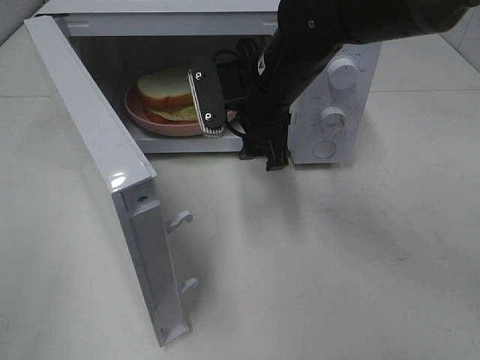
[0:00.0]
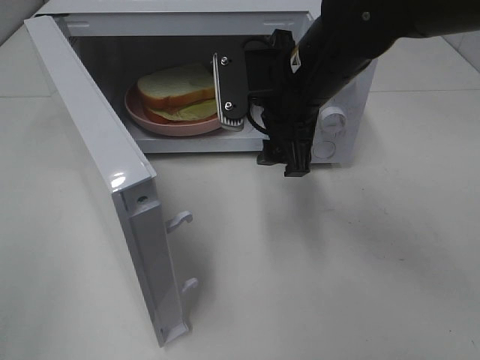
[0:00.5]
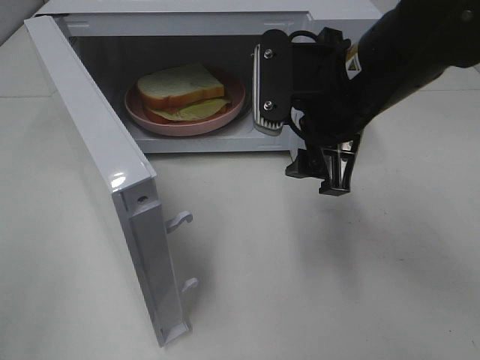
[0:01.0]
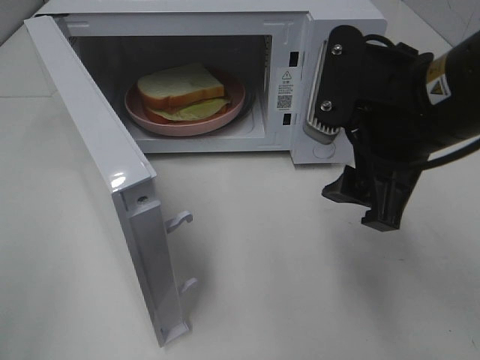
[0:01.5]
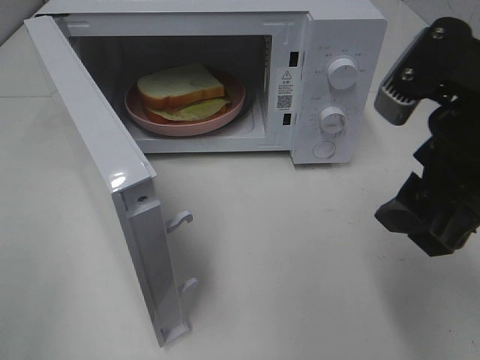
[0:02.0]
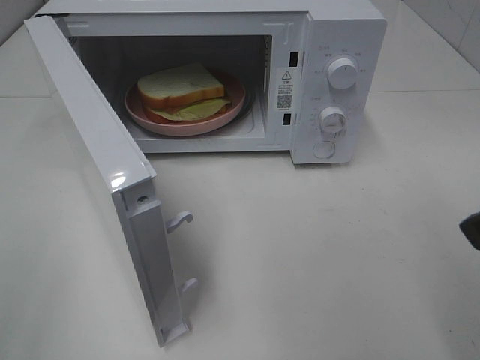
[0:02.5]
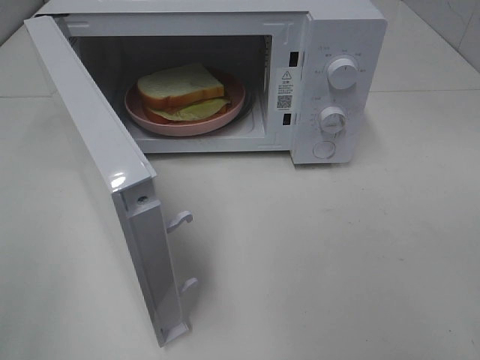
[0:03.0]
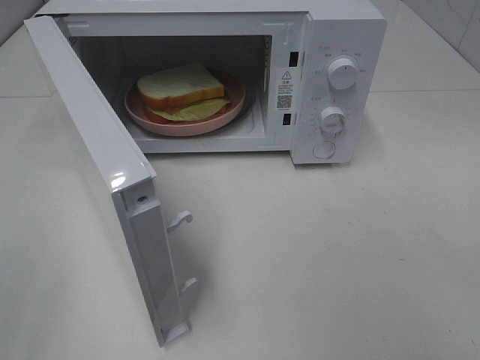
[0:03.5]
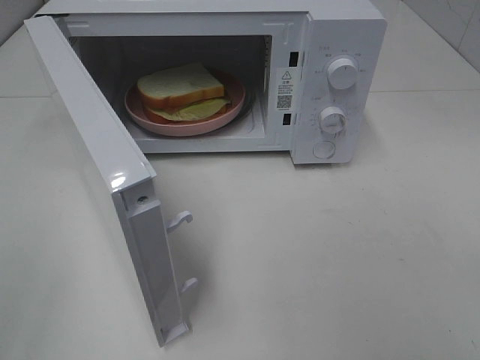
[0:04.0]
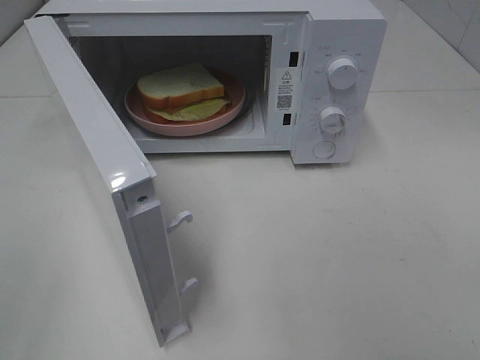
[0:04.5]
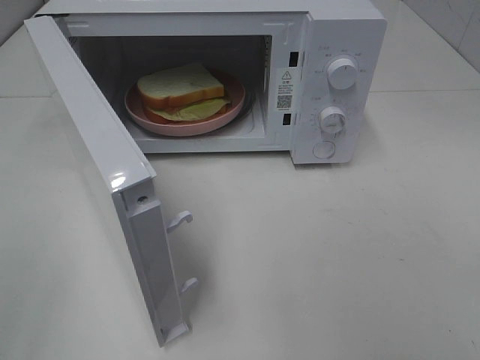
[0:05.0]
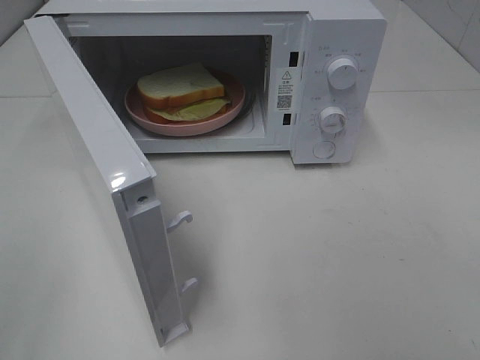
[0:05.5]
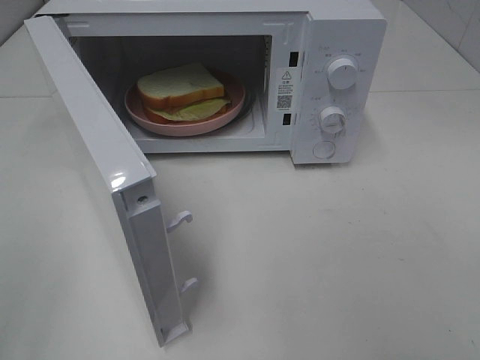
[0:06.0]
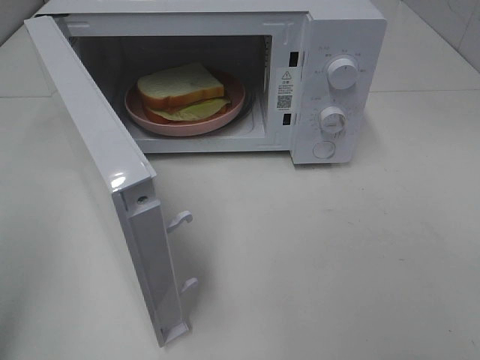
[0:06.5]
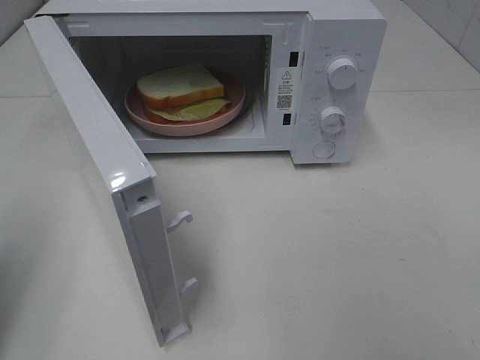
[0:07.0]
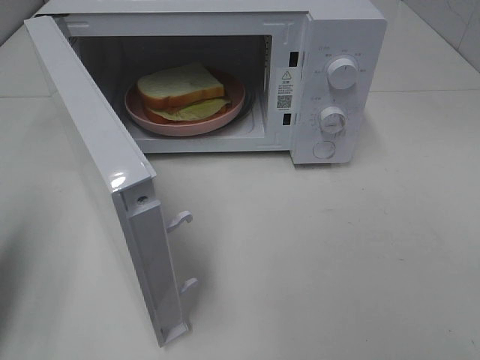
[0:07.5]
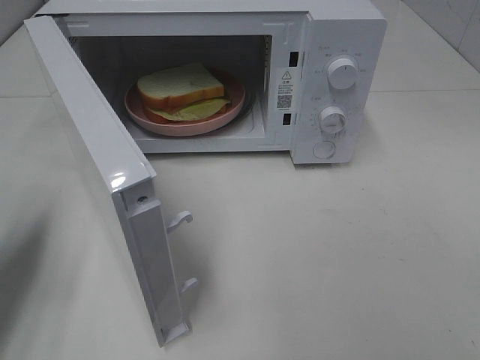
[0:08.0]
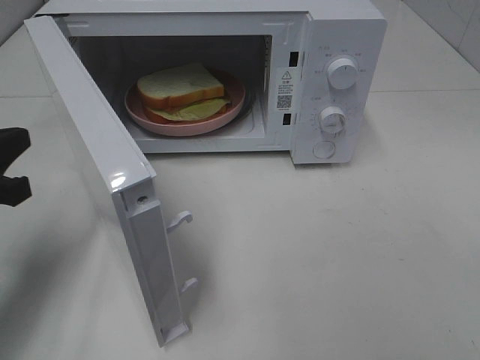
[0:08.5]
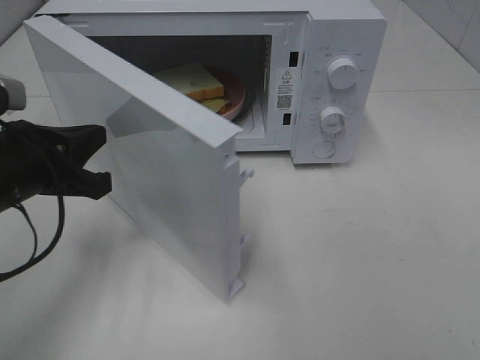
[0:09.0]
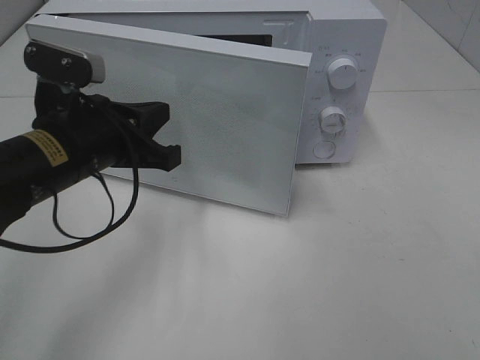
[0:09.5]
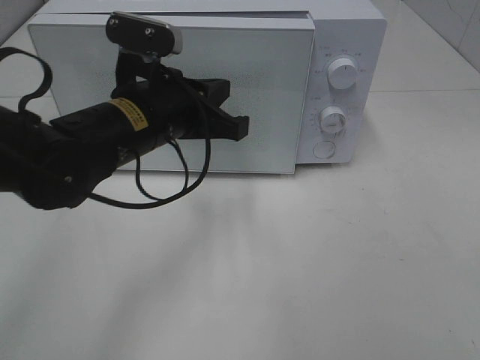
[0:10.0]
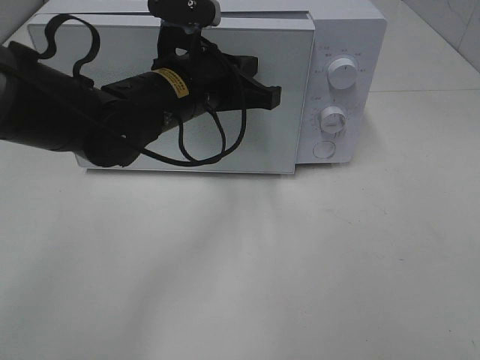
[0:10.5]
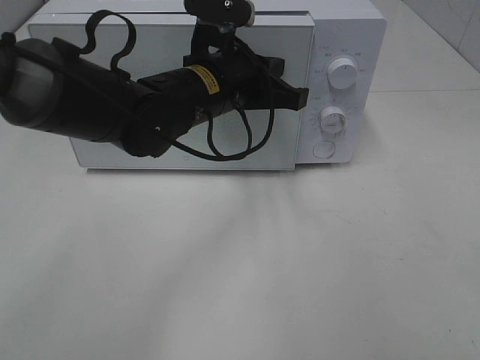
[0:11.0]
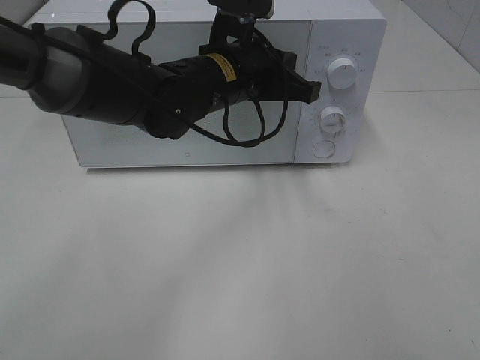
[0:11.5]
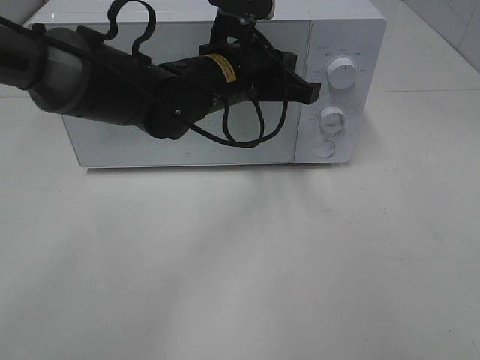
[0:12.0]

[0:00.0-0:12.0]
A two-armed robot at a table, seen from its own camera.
Task of the whole recording: Heat Sandwich.
0:00.0 to 0:02.0: The right gripper shifts about 20 cm backward and to the right.
0:02.0 to 0:04.0: The right gripper goes roughly 20 cm backward and to the right.
0:04.0 to 0:06.0: Neither gripper changes place.
0:06.0 to 0:08.0: The left gripper heads forward and downward, covering some 20 cm, and closes up.
0:08.0 to 0:10.0: The left gripper goes about 25 cm to the right and forward.
0:10.0 to 0:12.0: The left gripper heads to the right and forward, covering some 10 cm.

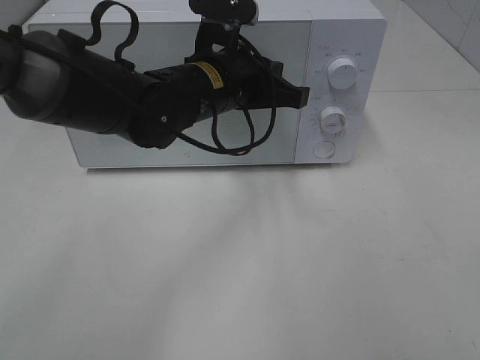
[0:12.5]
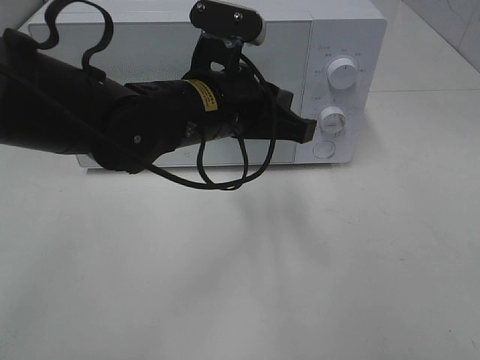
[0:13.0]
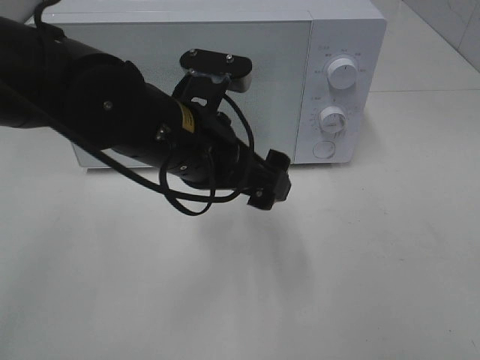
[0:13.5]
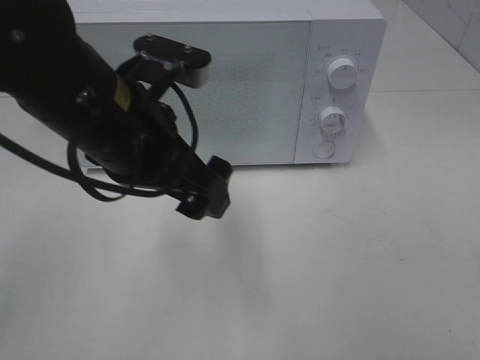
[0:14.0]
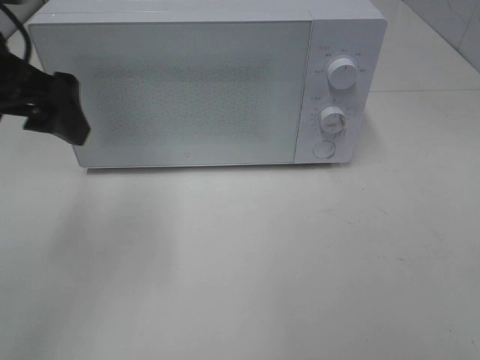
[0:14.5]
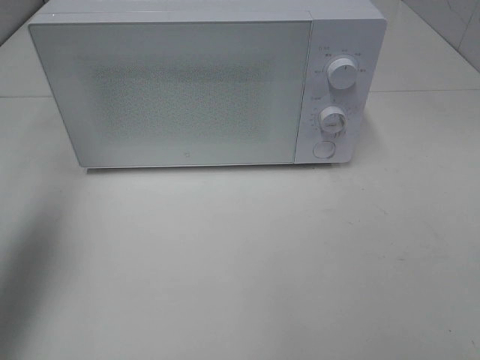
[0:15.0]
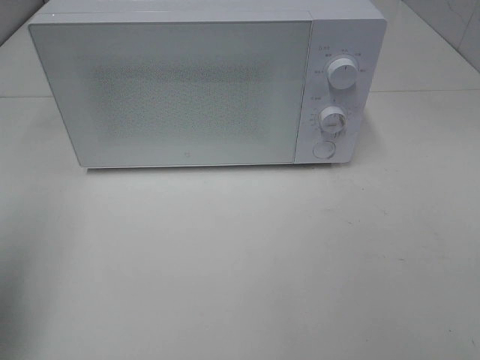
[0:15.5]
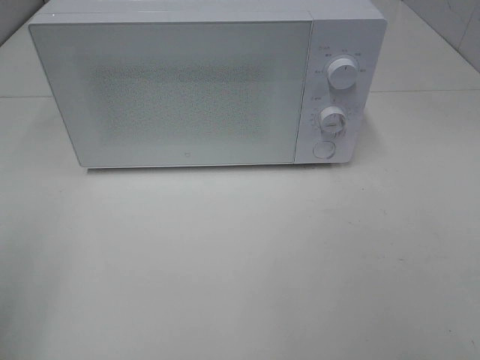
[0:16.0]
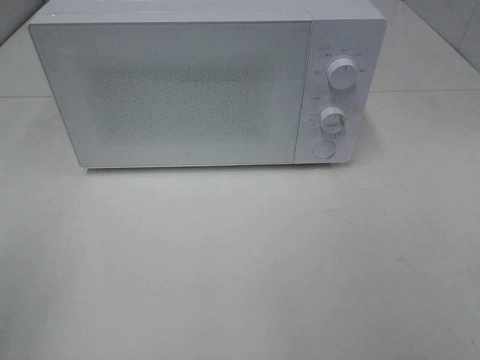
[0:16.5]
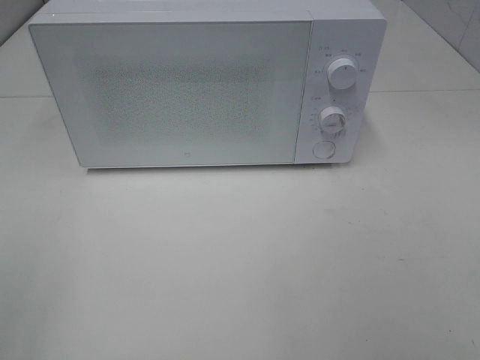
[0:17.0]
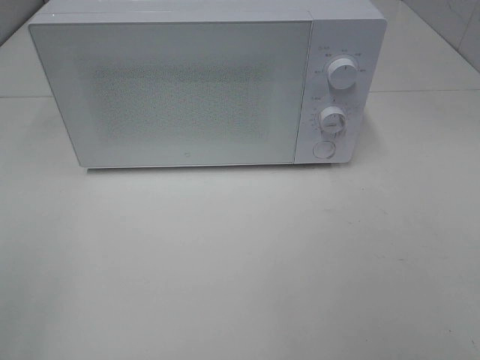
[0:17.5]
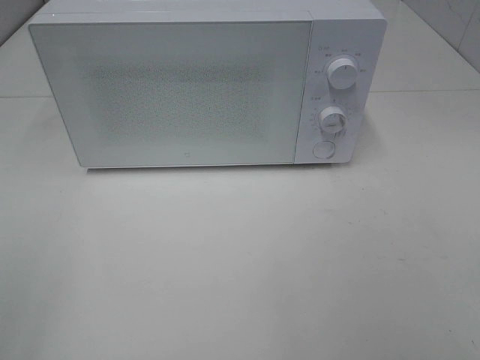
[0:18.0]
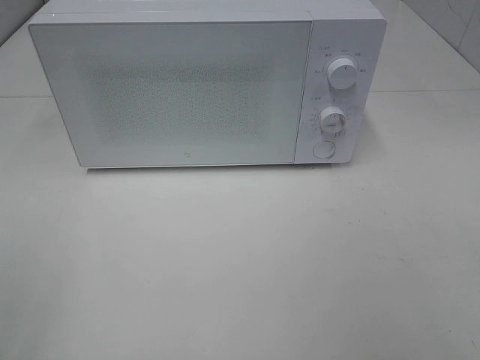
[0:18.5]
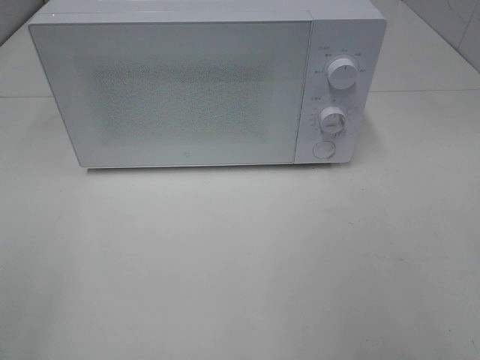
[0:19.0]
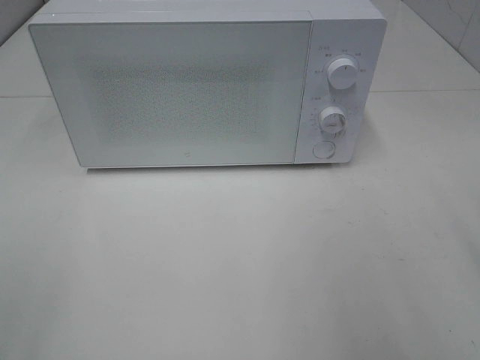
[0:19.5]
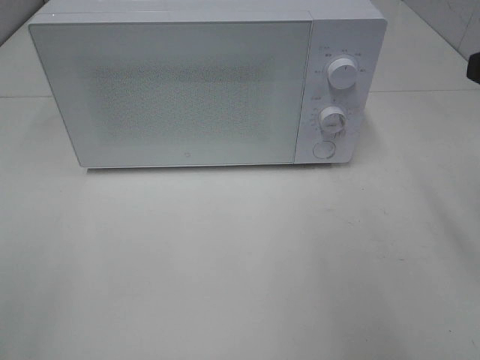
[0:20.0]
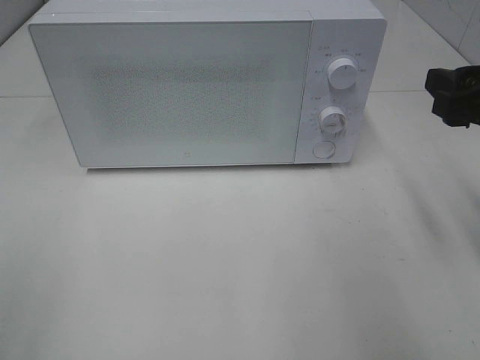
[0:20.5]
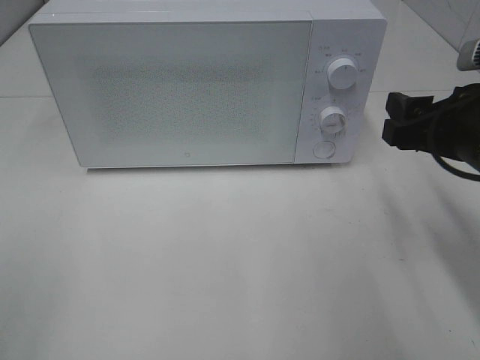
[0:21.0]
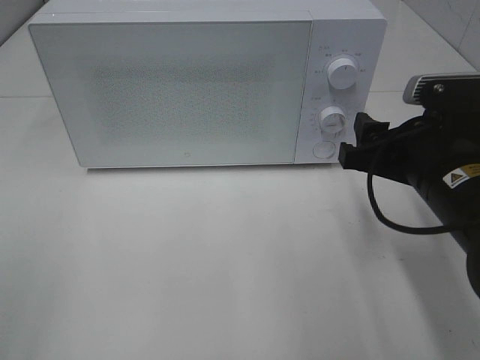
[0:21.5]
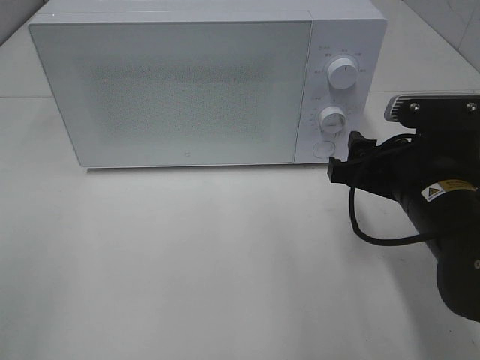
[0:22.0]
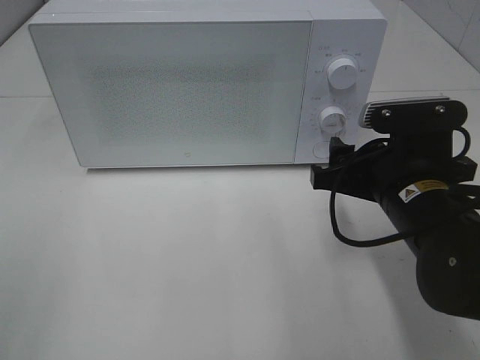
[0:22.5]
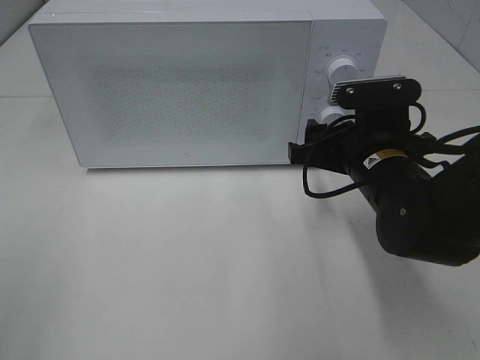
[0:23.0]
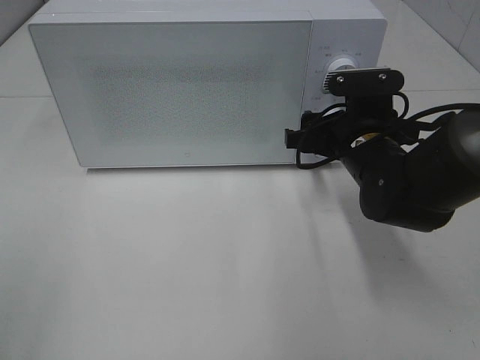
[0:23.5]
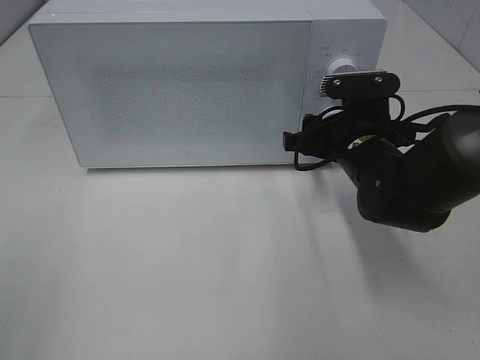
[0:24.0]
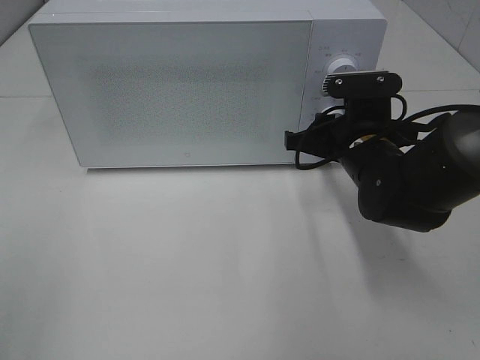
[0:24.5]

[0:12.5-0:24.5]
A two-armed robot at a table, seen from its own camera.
Task of the whole recording: Heat Sandwich.
0:12.5 to 0:14.5: The left gripper is displaced to the left and upward by about 25 cm, and opens up.
0:14.5 to 0:16.5: The left gripper heads backward and to the left, covering some 25 cm.
0:18.5 to 0:20.5: The right gripper is displaced forward by some 20 cm.
0:20.5 to 0:22.5: The right gripper moves to the left and downward, some 15 cm.
0:22.5 to 0:24.5: The right gripper travels forward by roughly 10 cm, and closes up.

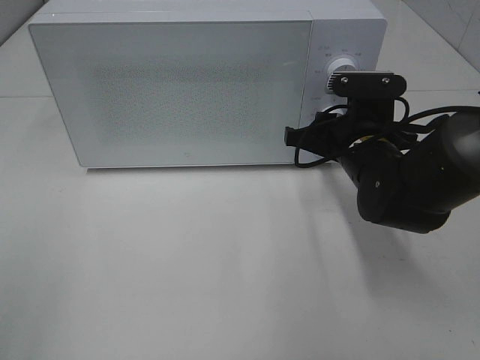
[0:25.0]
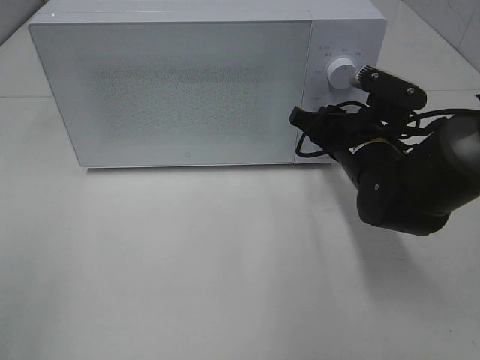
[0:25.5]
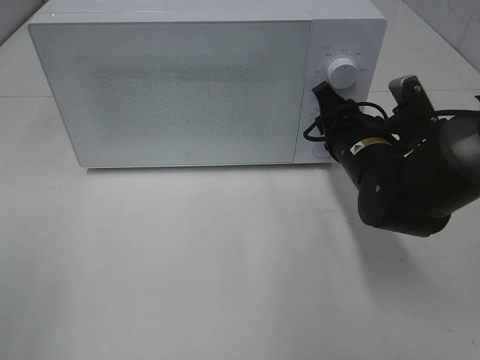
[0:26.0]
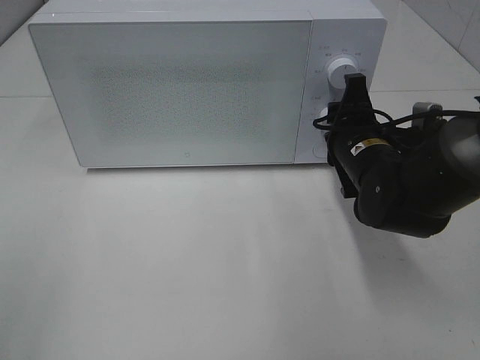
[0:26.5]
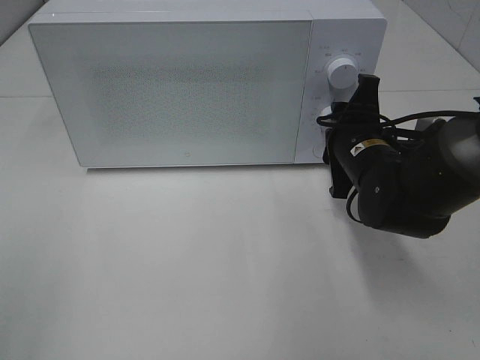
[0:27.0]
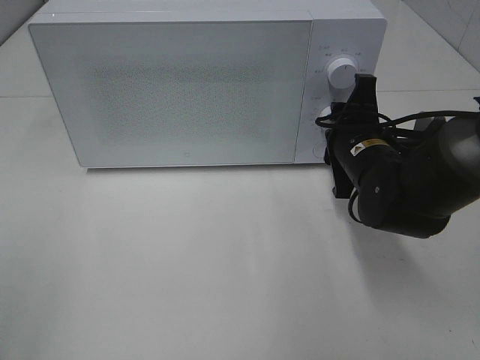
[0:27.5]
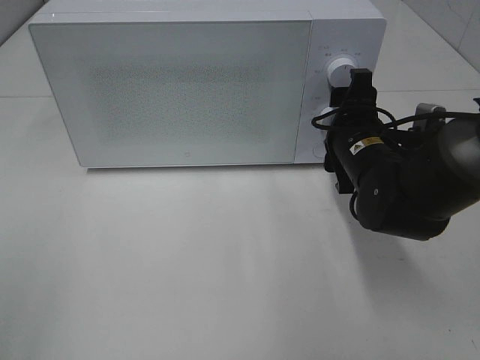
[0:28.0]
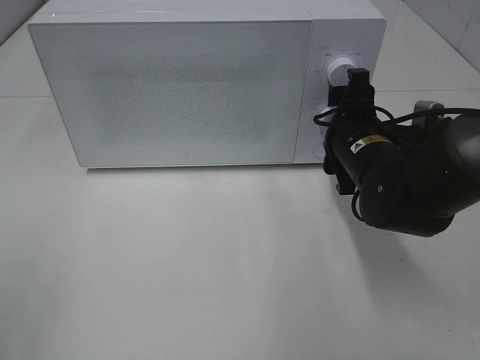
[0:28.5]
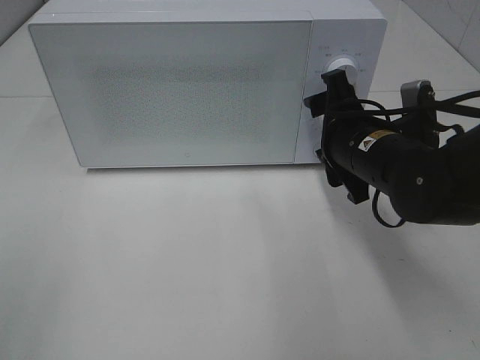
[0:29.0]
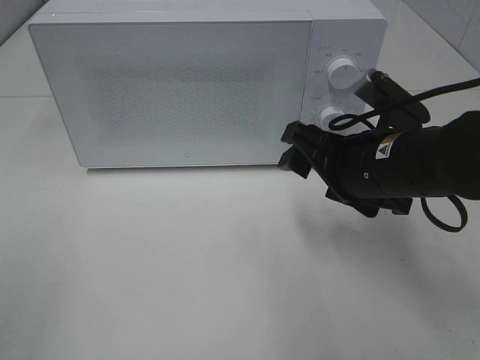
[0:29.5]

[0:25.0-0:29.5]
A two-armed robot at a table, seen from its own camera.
Task of the whole recording: Heat Sandwich.
Step, 0:25.0 to 0:28.5: Right hand: twist timer button.
0:27.0 to 0:29.5: The right gripper heads backward, covering about 5 cm, and opens.
